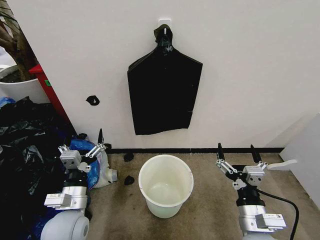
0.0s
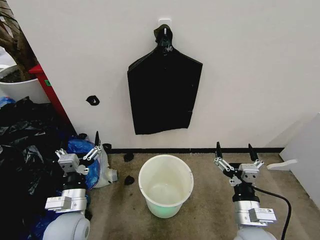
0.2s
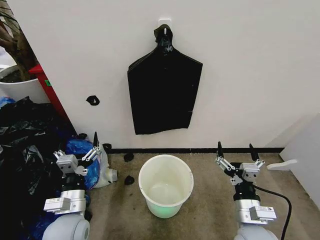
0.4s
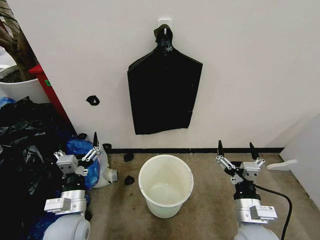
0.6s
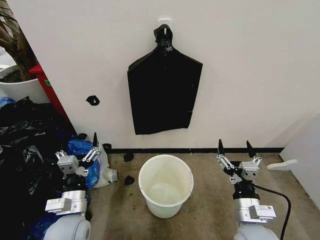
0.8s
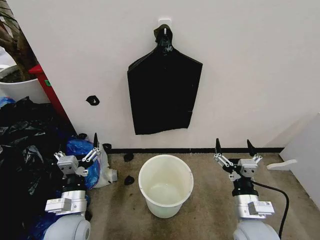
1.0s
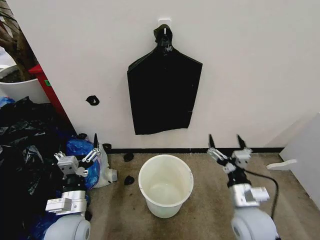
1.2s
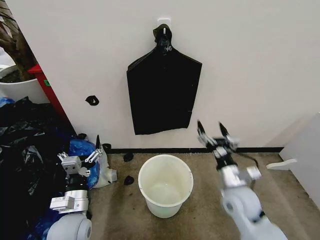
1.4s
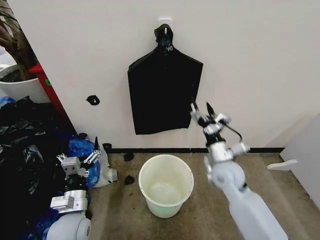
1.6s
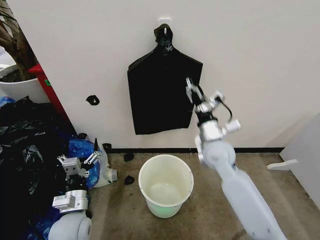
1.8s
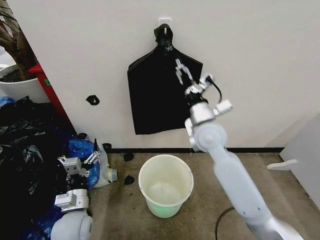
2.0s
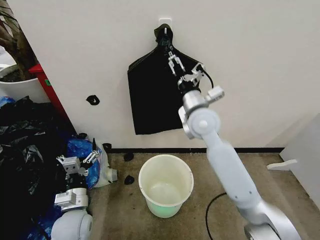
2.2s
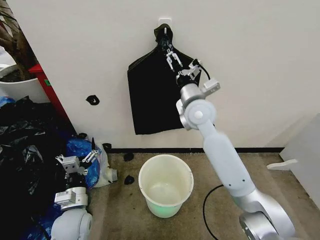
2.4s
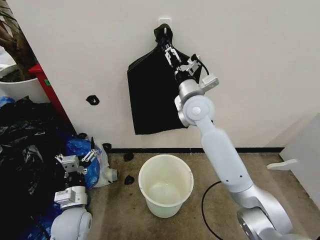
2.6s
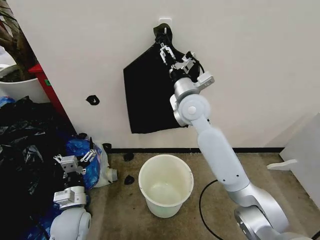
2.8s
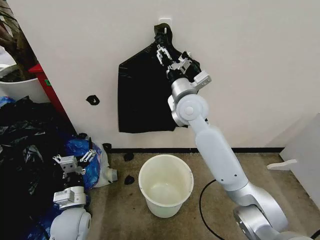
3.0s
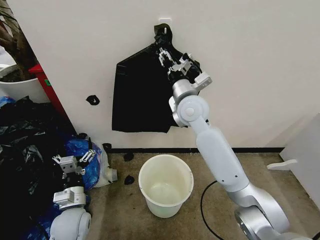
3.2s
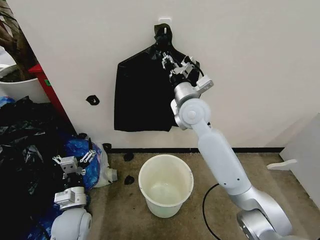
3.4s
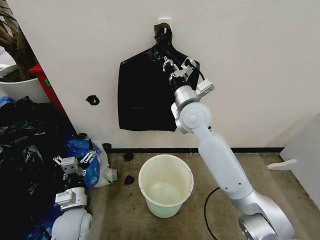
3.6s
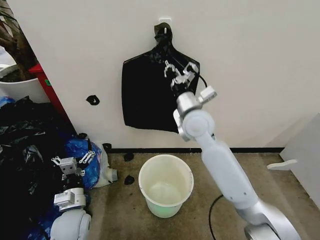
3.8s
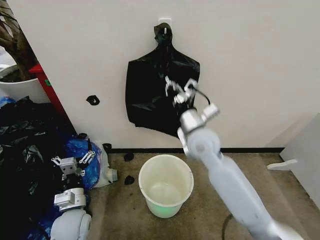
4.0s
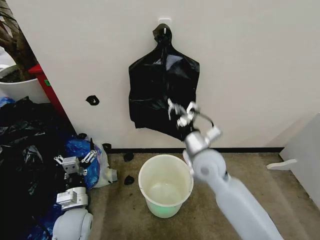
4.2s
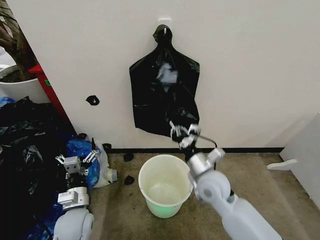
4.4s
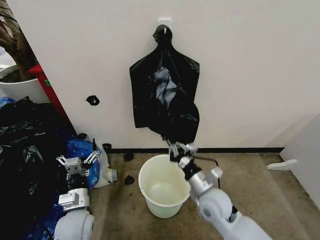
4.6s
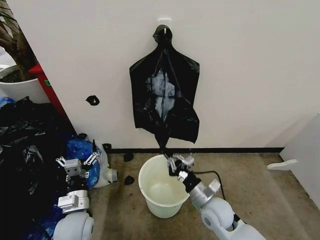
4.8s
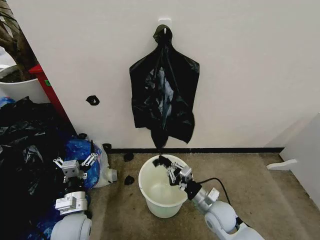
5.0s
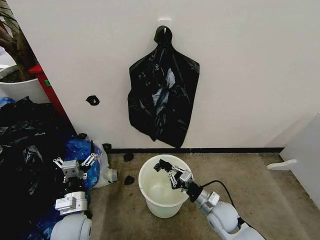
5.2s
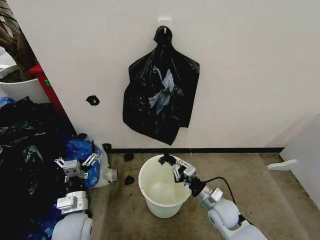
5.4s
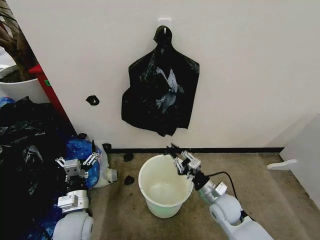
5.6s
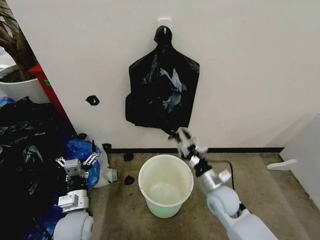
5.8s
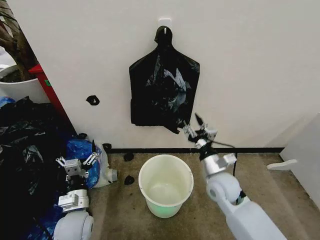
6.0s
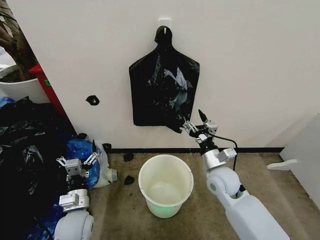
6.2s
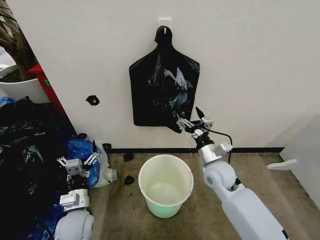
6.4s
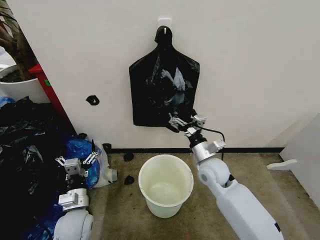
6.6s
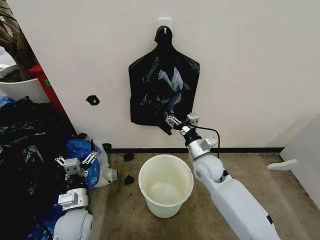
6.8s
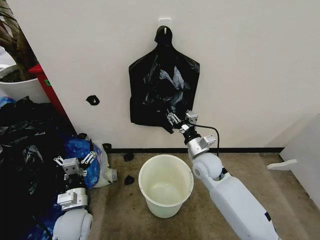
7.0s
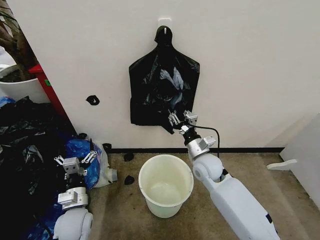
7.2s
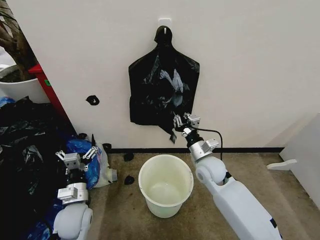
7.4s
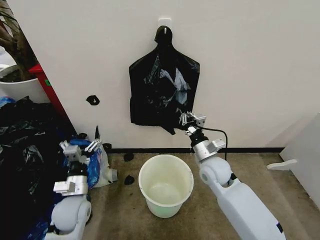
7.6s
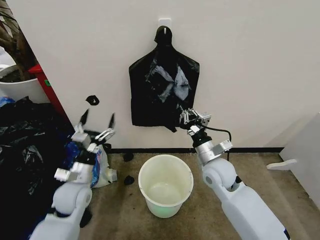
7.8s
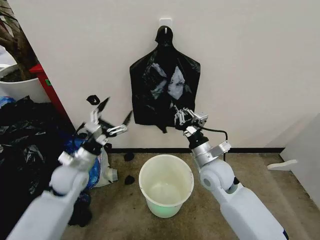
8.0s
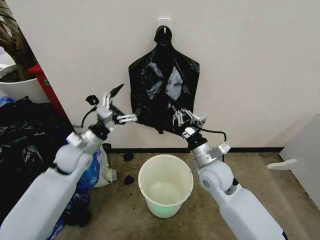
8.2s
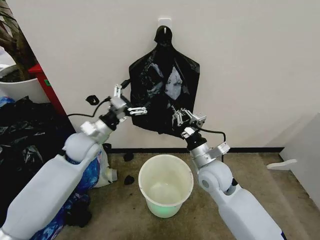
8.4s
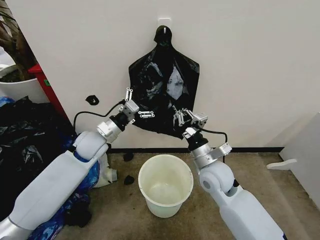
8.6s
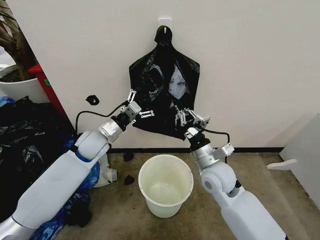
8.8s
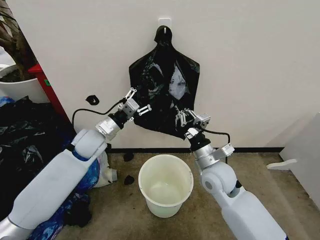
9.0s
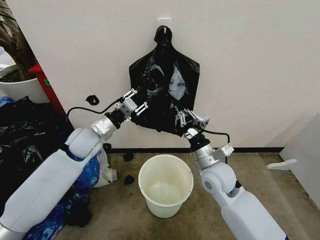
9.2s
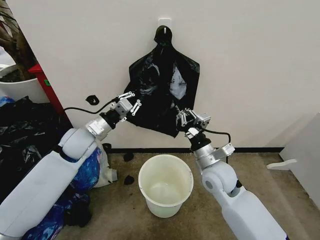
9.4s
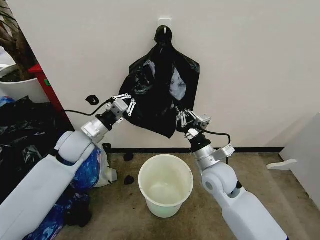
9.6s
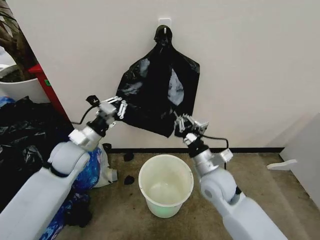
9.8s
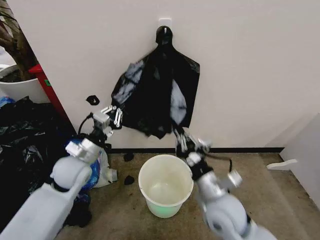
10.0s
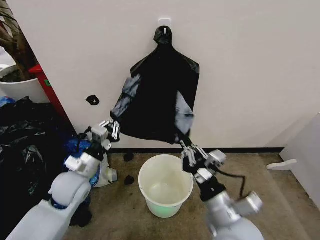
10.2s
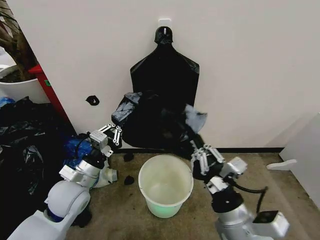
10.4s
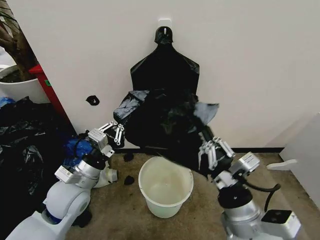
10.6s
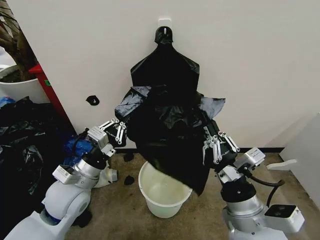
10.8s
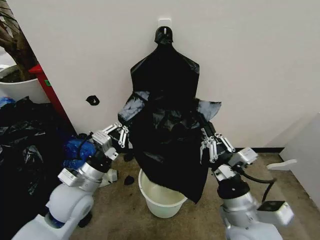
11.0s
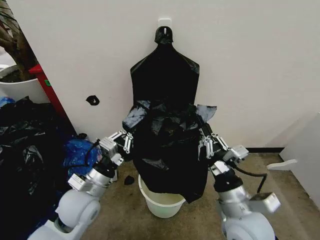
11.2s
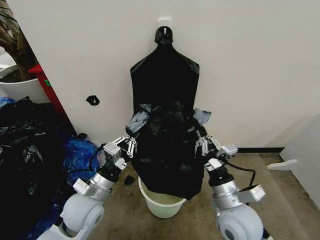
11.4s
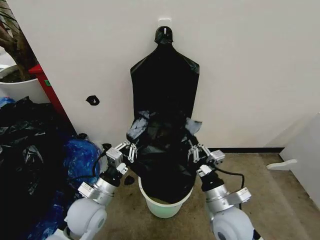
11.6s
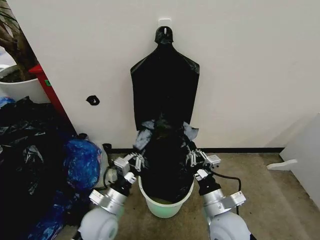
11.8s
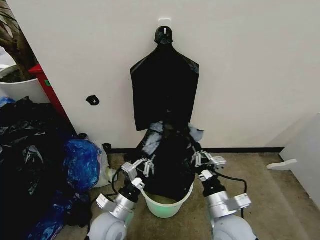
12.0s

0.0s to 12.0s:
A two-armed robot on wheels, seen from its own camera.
Task of the whole recording: Place the garbage bag over the trash bin.
1.6s to 3.0s: The right gripper goes approximately 25 cm upward, forward and to the left, and closes up.
3.0s to 4.4s: The right gripper heads downward and backward, covering some 25 cm, and closes its fingers.
4.4s to 6.0s: The right gripper reaches some 15 cm downward, then returns, and opens up.
6.0s to 7.6s: The right gripper shifts by some 5 cm, and closes up.
7.6s to 9.0s: The right gripper shifts by some 5 cm; the left gripper heads forward and upward, covering approximately 20 cm, and closes up.
9.0s to 10.4s: The grippers both shift backward by about 15 cm. The left gripper closes up.
10.4s to 12.0s: The left gripper goes approximately 15 cm to the right, downward and backward. Meanwhile the right gripper moves downward, some 5 cm.

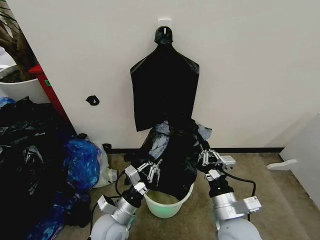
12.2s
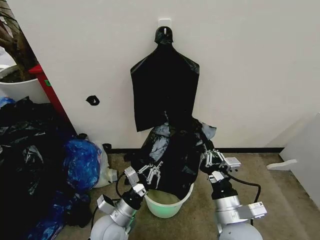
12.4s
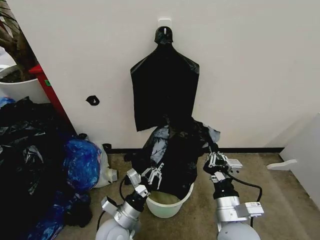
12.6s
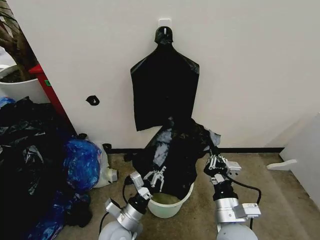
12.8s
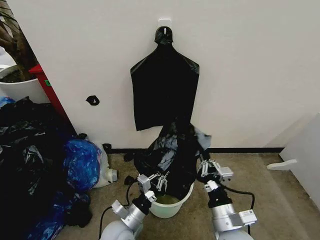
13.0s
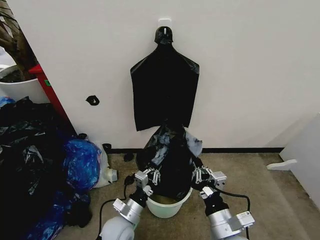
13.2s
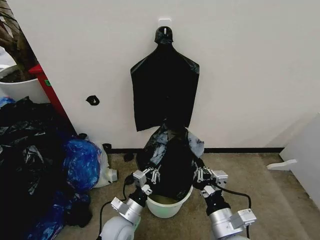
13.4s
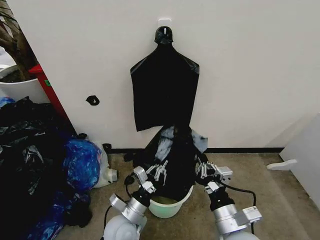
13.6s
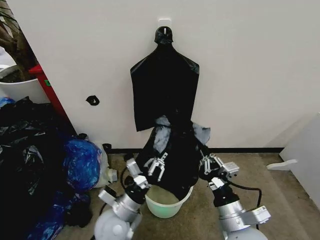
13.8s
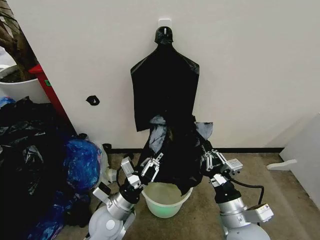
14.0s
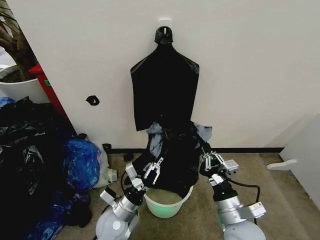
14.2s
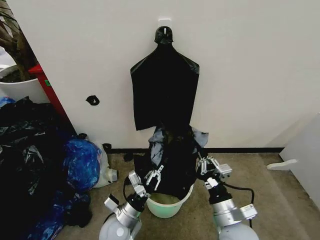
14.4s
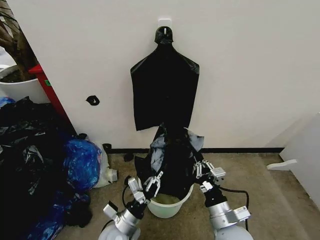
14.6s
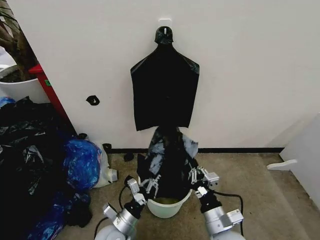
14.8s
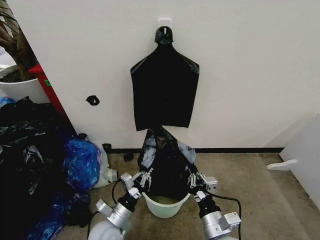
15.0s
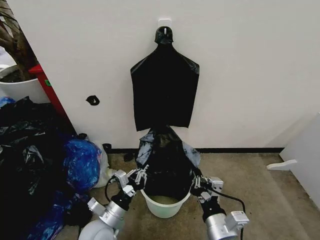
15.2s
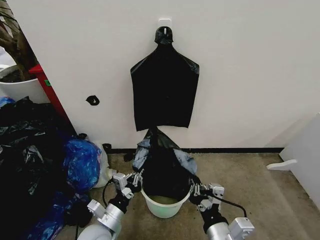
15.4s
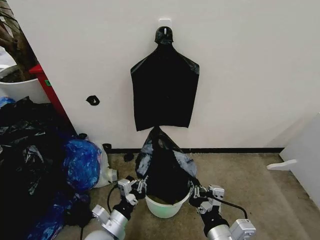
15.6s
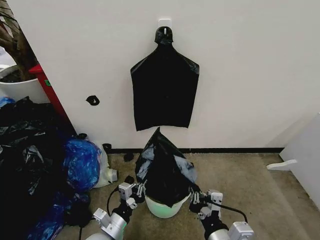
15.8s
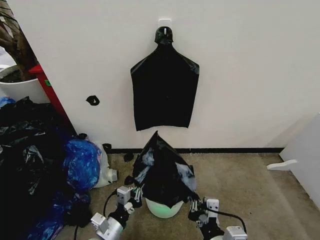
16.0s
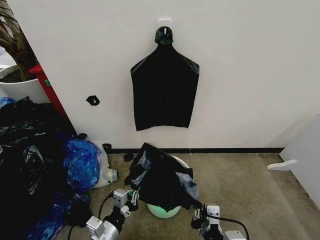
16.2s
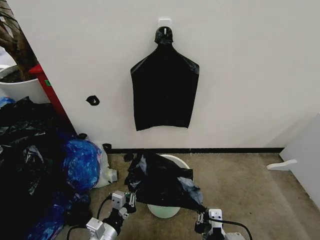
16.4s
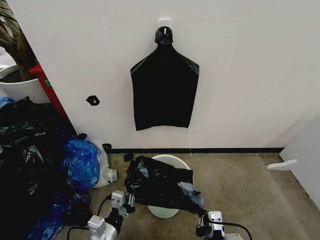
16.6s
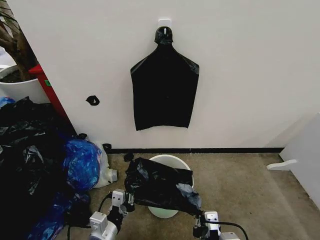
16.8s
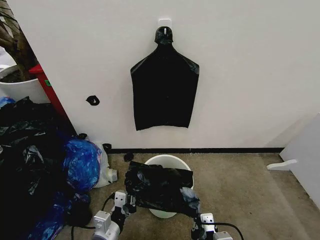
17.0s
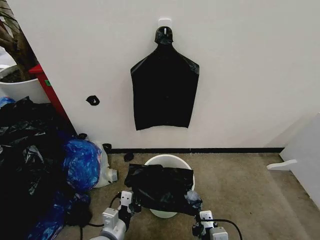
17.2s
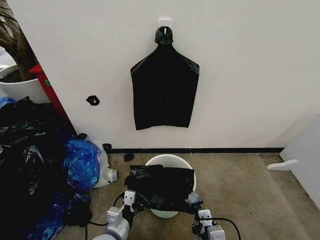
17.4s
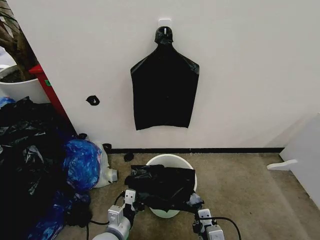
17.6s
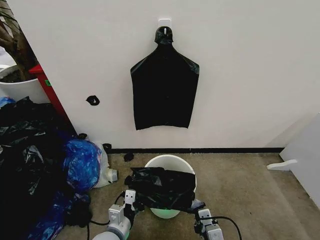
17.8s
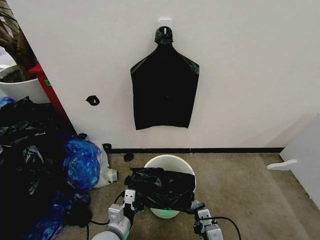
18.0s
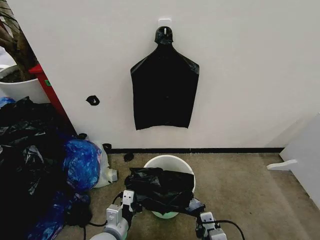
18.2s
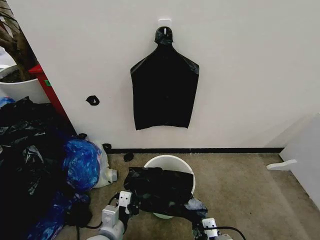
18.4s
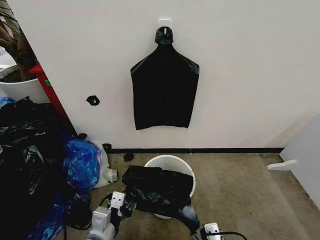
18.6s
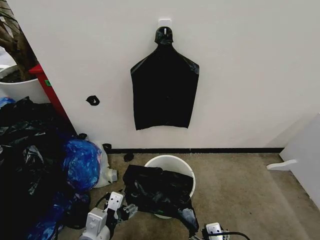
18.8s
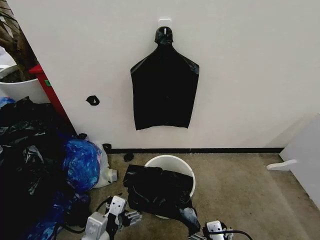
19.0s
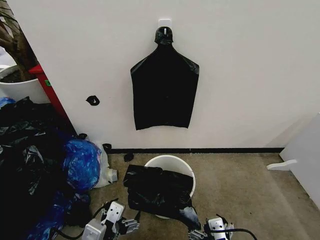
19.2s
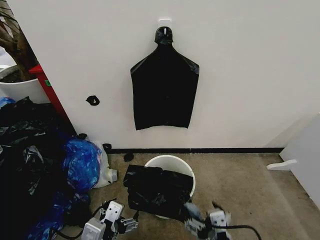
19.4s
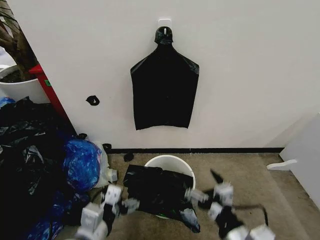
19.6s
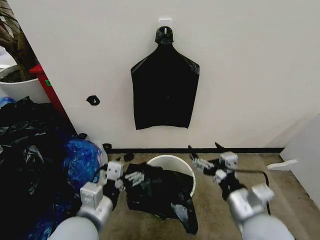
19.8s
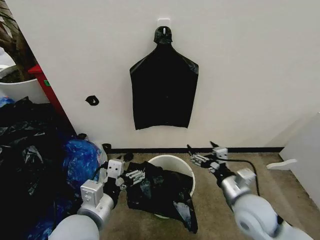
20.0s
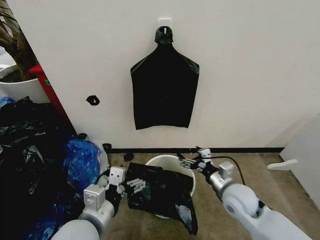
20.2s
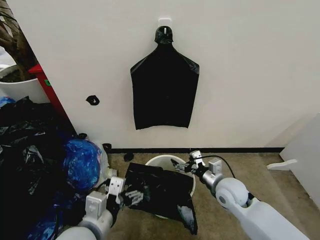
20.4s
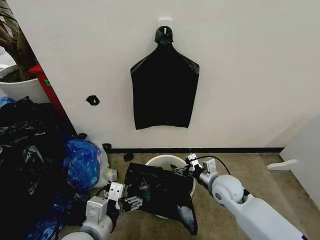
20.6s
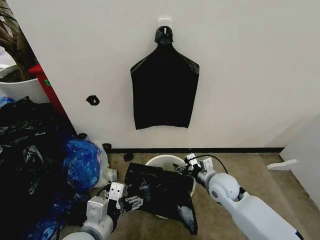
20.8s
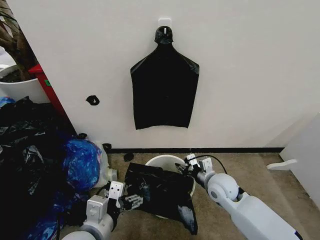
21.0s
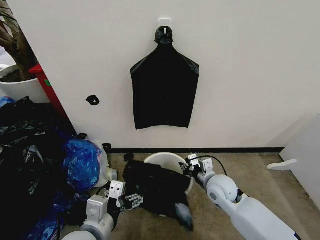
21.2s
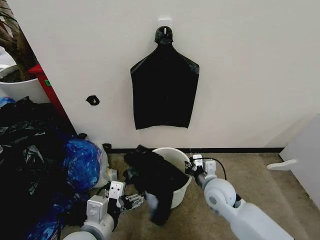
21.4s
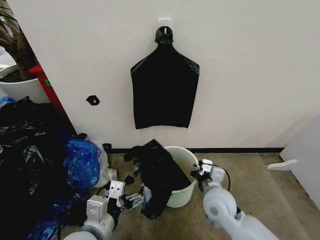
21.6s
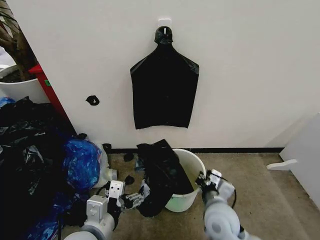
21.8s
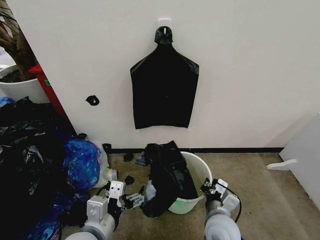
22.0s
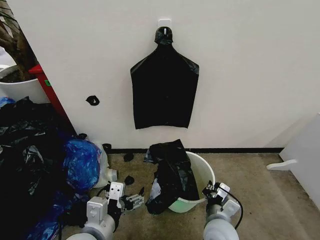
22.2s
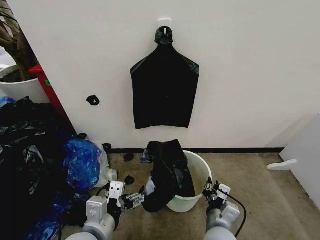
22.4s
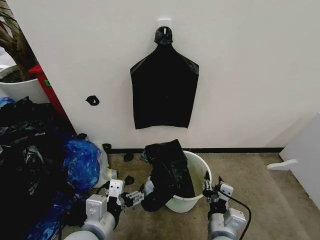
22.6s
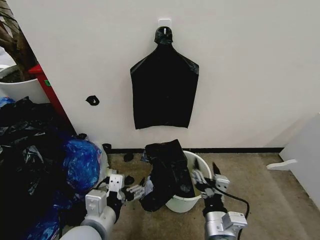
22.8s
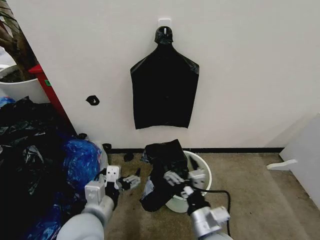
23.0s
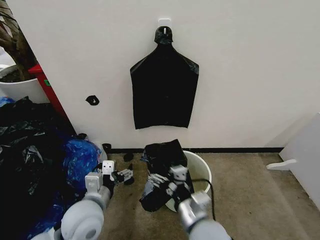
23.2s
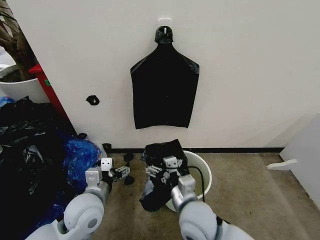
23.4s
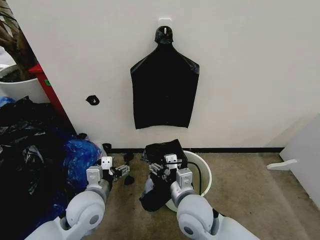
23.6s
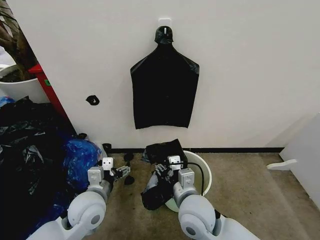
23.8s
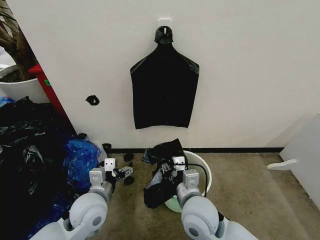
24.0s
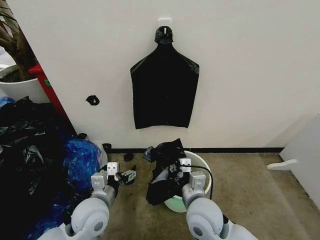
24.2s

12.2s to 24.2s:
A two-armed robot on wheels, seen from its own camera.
Task of the whole recording: Place the garbage bag over the trash bin.
12.2s to 13.8s: The left gripper moves roughly 5 cm downward and comes back.
13.8s to 15.2s: The left gripper moves about 5 cm.
15.2s to 16.6s: The grippers both shift backward by about 5 cm.
16.6s to 18.2s: The right gripper heads downward, covering about 5 cm.
18.2s to 19.8s: The right gripper heads upward and forward, covering about 15 cm, and opens up. Meanwhile the left gripper shifts roughly 15 cm upward, and opens.
19.8s to 21.2s: The right gripper shifts approximately 20 cm forward and downward, and closes.
21.2s to 22.6s: The right gripper goes roughly 20 cm backward.
22.6s to 24.2s: The right gripper heads forward, covering approximately 10 cm, and opens, then closes again; the left gripper is displaced forward and downward by roughly 10 cm.
